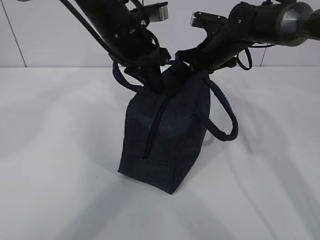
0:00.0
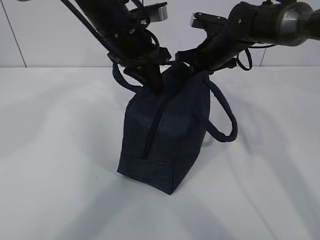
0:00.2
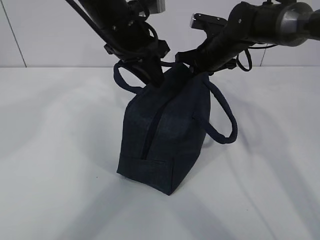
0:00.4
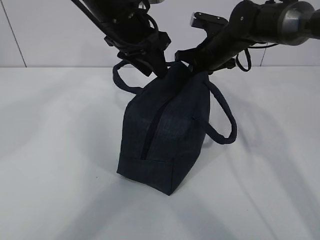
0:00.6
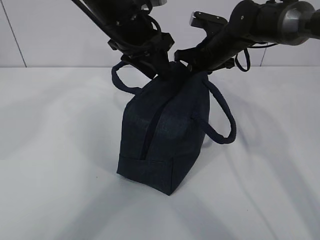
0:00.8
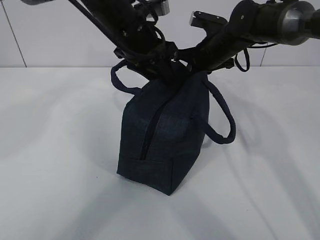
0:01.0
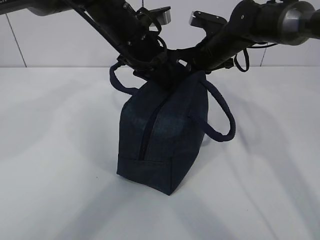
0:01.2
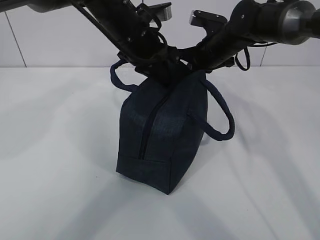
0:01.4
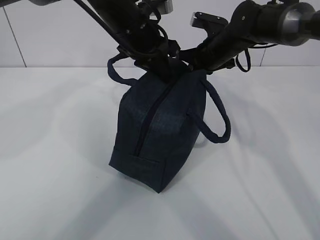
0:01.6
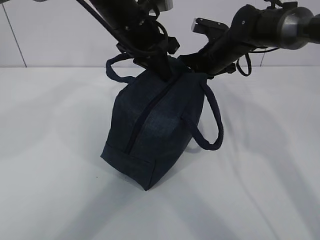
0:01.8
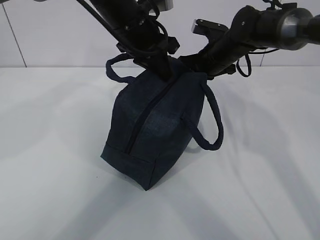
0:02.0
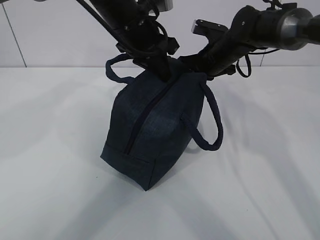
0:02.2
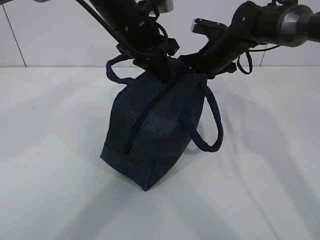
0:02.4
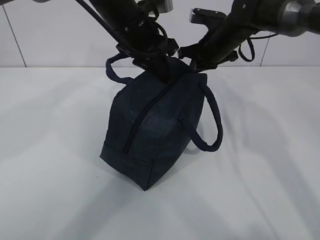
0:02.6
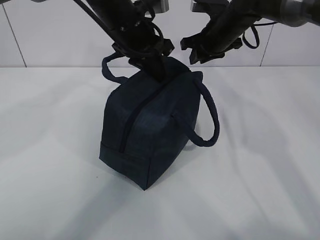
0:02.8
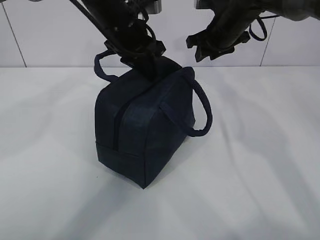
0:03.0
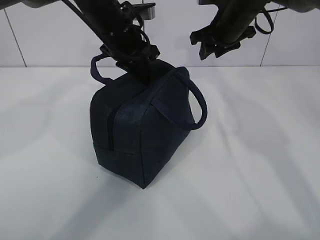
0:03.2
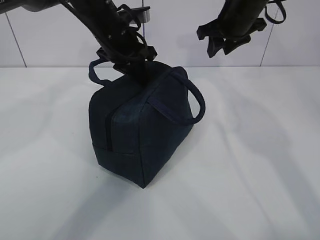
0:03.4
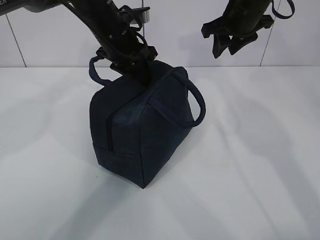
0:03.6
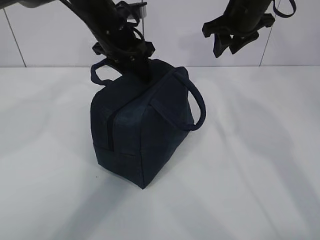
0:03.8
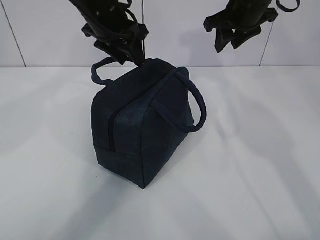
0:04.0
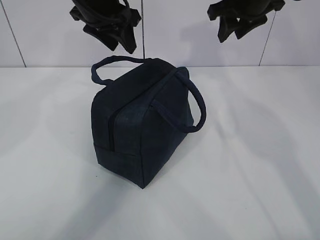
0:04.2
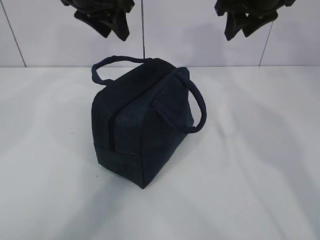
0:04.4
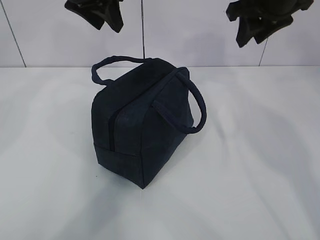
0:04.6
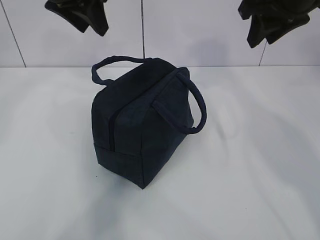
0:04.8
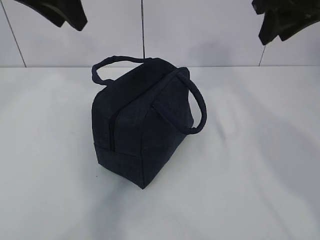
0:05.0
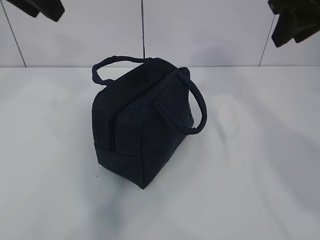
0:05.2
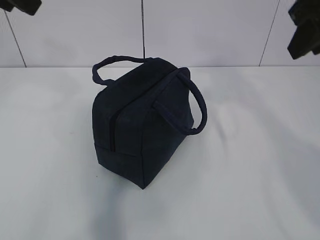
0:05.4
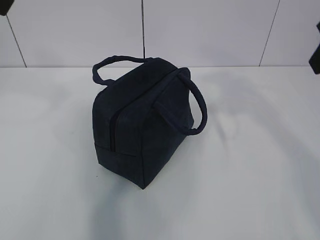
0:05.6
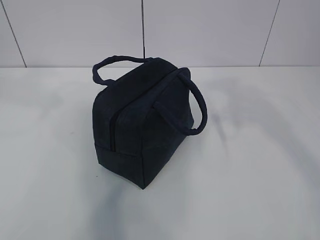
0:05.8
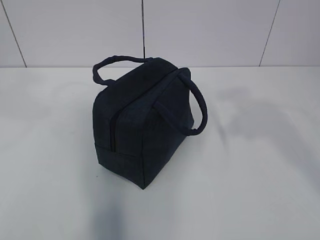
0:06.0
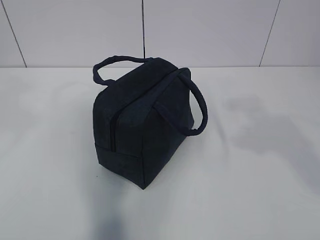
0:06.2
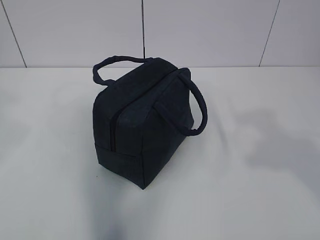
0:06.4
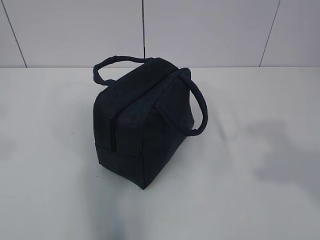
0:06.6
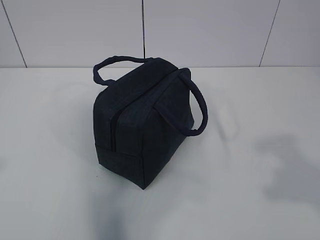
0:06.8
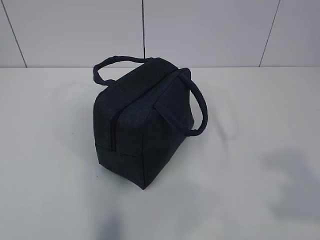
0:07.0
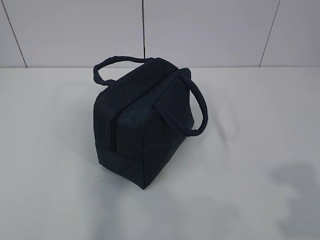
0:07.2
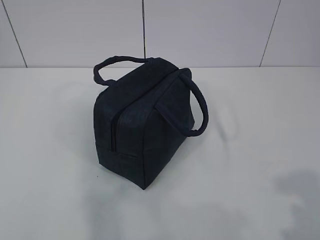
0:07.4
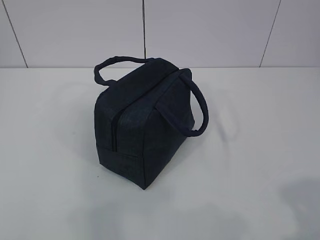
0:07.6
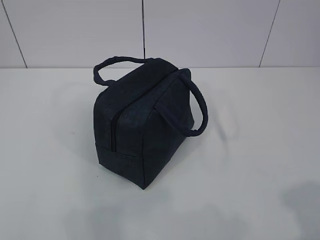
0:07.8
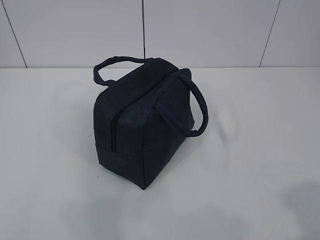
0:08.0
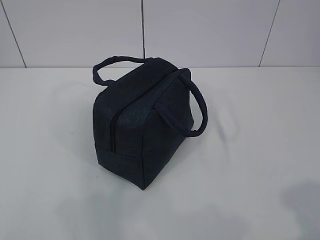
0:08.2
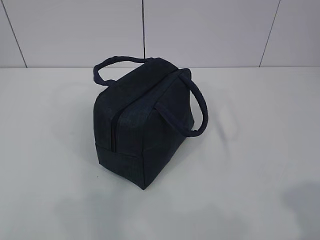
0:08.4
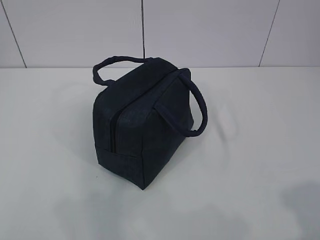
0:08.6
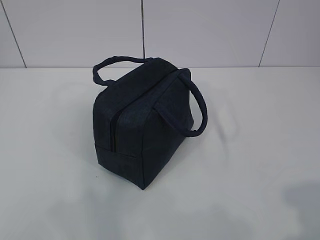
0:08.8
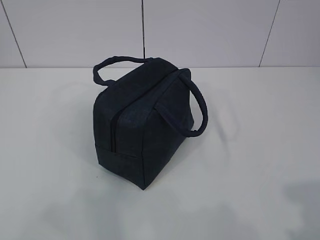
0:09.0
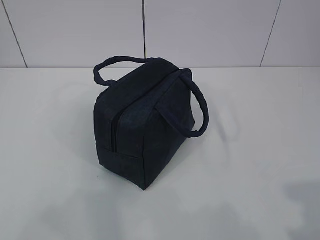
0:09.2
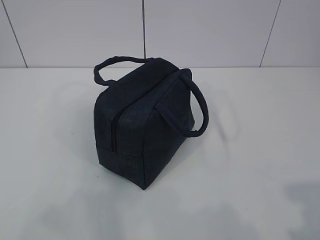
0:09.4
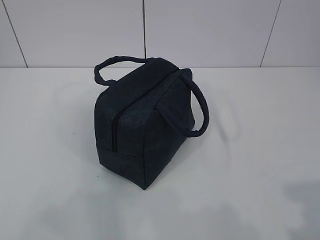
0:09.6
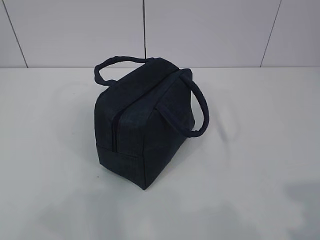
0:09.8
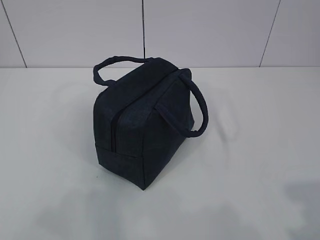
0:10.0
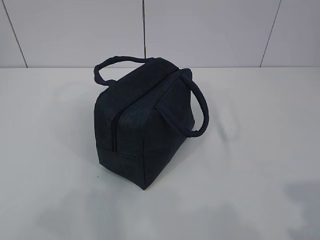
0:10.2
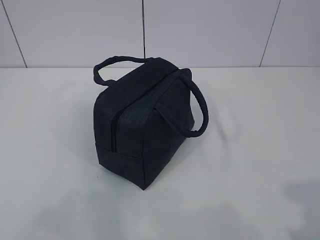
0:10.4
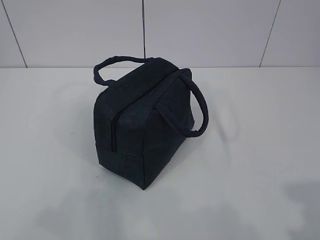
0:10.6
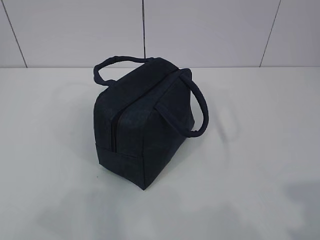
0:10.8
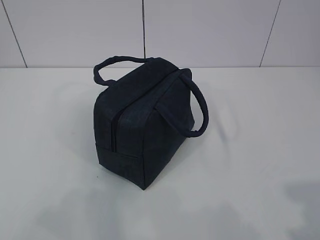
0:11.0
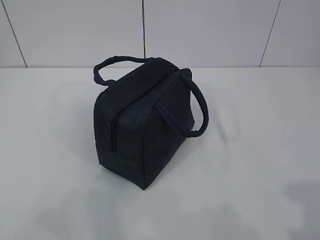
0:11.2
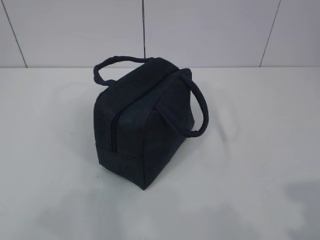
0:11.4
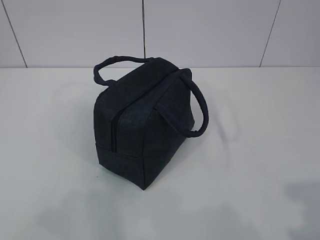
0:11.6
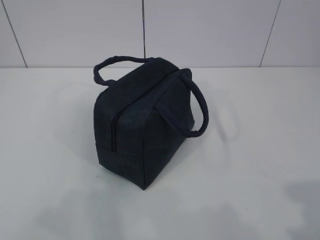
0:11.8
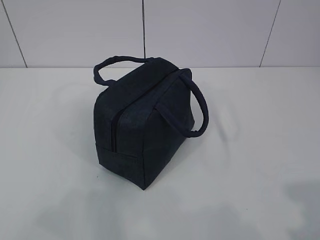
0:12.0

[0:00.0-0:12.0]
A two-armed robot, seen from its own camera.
Step, 0:00.0 to 0:04.0: zip up the zipper to close the bag.
0:00.0 to 0:01.6: The left gripper opens and closes again.
0:01.6 to 0:03.0: The right gripper opens.
0:03.0 to 0:04.4: The left gripper heads upward, covering roughly 5 cm, and opens up; the right gripper goes roughly 10 cm upward and backward.
0:04.4 to 0:06.0: The left gripper shifts some 30 cm backward, to the left and upward; the right gripper moves backward, some 25 cm.
0:06.0 to 0:07.6: The left gripper goes roughly 25 cm backward, downward and to the left. The right gripper is displaced backward and downward by about 20 cm.
0:10.4 to 0:12.0: Neither gripper changes place.

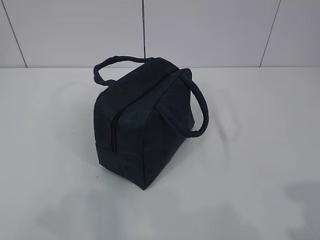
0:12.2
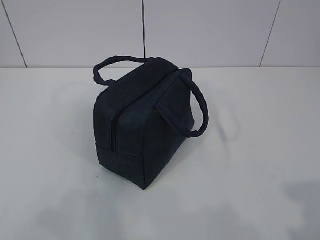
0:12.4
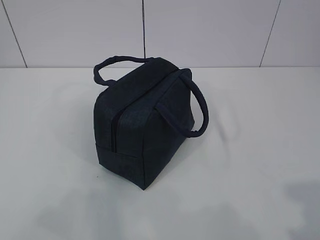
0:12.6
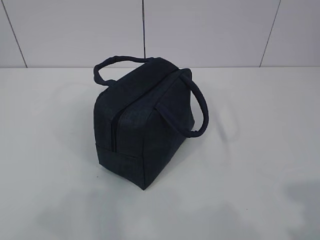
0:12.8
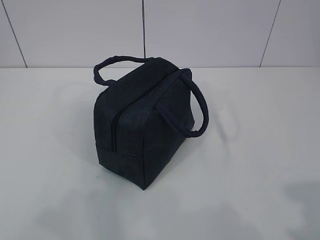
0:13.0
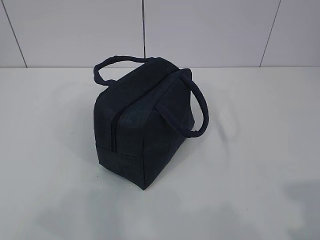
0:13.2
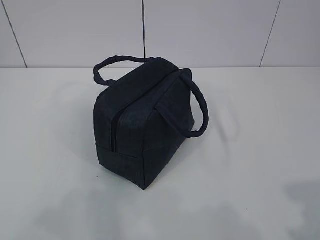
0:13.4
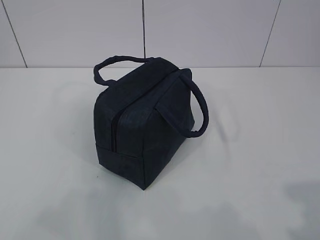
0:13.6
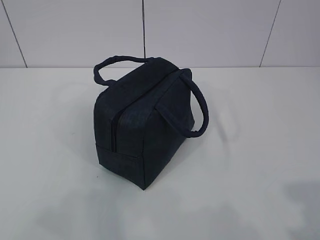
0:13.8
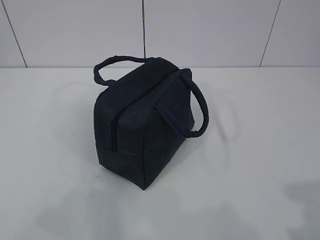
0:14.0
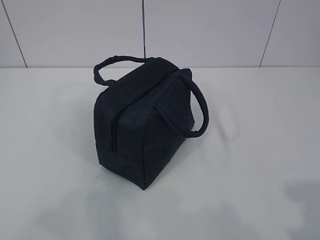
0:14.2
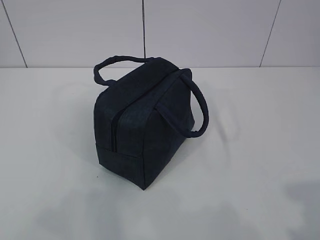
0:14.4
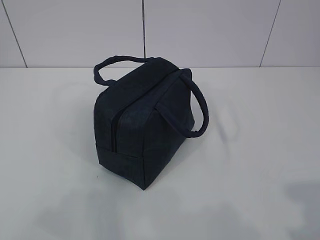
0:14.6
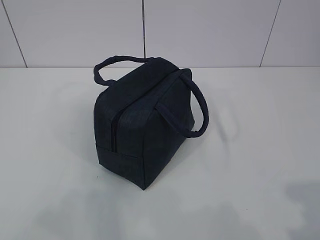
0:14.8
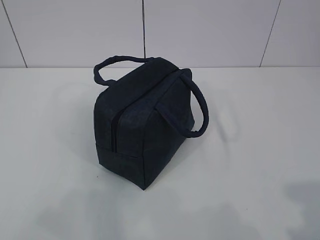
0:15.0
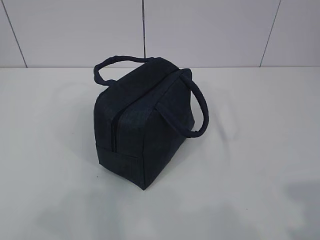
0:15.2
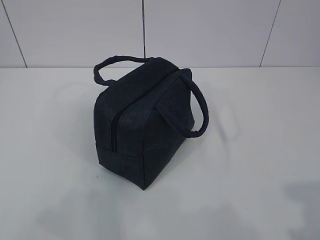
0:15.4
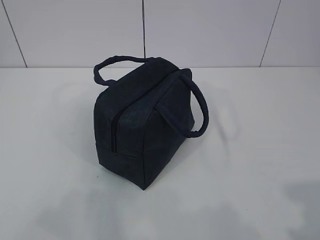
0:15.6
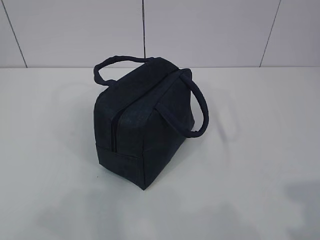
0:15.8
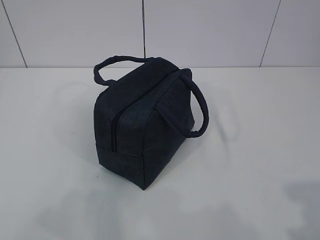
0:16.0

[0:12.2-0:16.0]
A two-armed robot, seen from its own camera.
0:12.2 to 0:16.0: Neither gripper changes place.

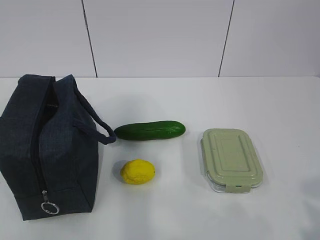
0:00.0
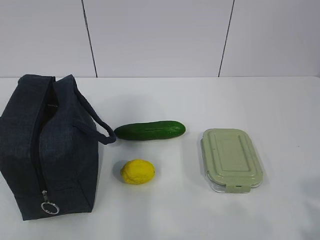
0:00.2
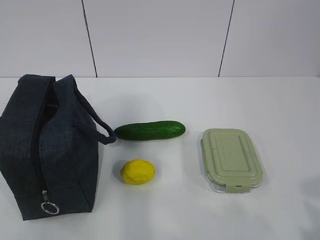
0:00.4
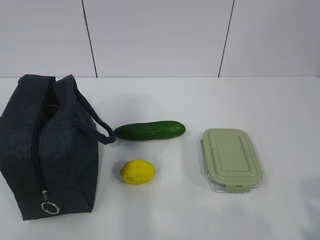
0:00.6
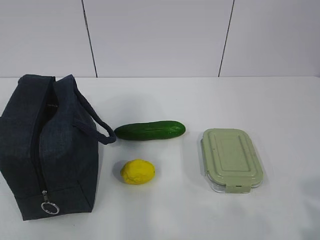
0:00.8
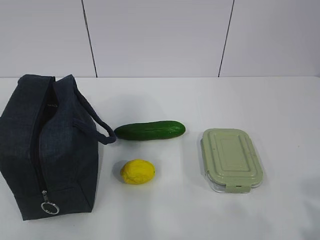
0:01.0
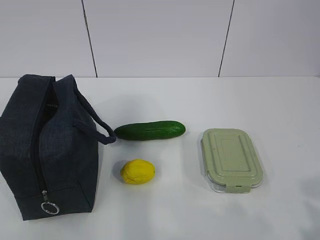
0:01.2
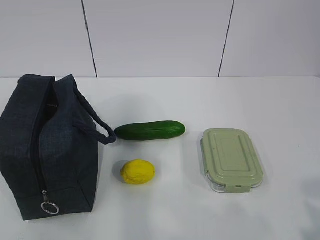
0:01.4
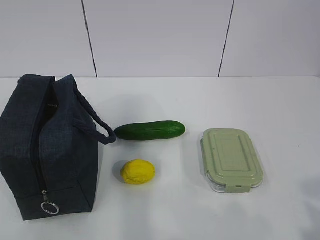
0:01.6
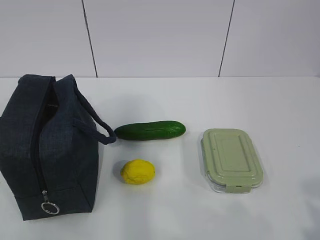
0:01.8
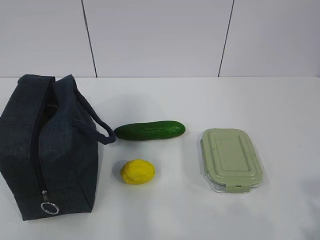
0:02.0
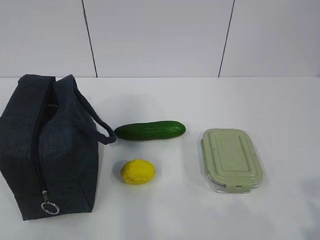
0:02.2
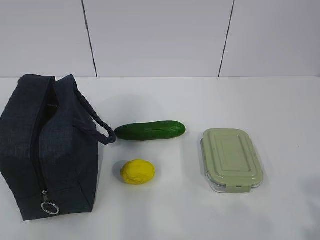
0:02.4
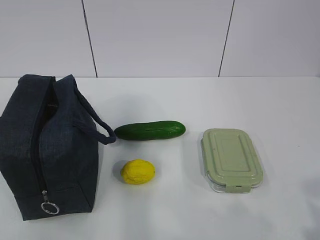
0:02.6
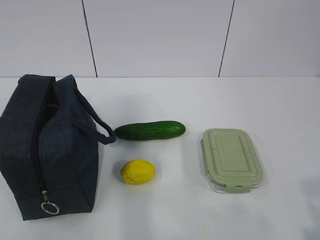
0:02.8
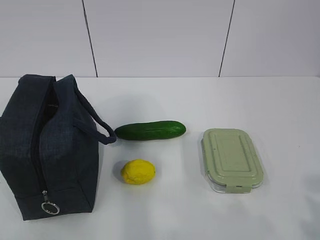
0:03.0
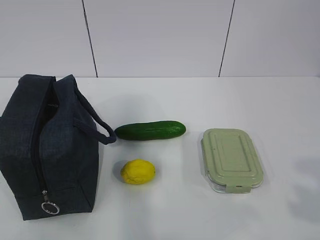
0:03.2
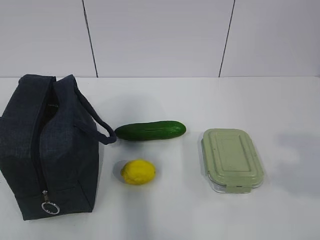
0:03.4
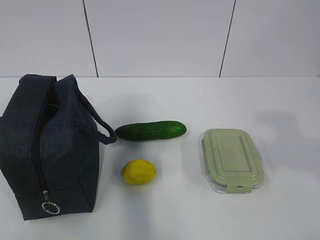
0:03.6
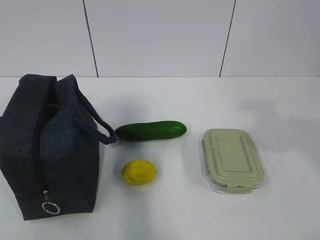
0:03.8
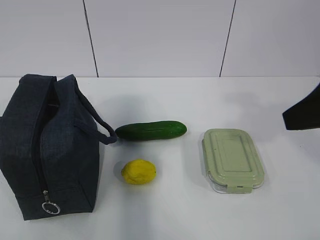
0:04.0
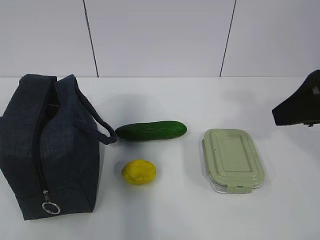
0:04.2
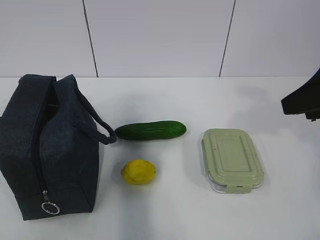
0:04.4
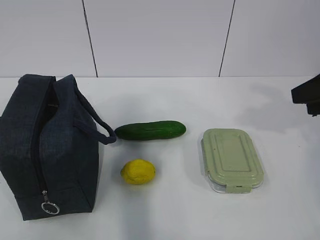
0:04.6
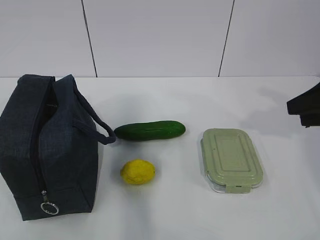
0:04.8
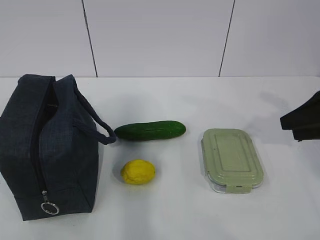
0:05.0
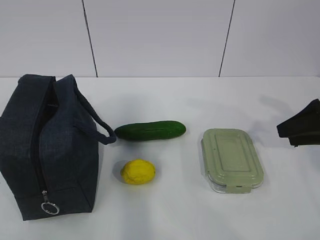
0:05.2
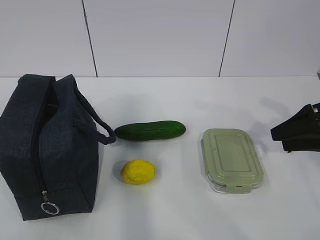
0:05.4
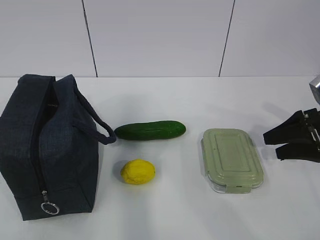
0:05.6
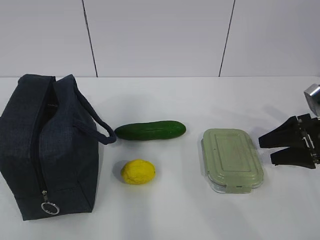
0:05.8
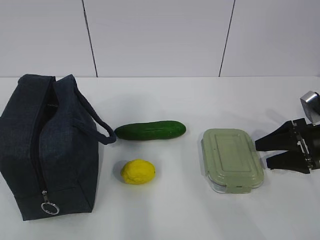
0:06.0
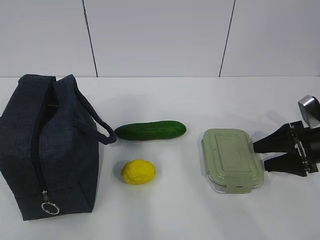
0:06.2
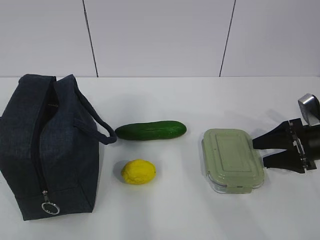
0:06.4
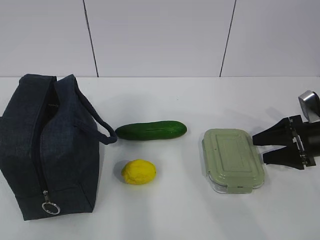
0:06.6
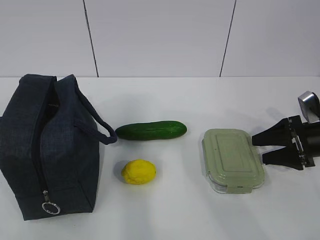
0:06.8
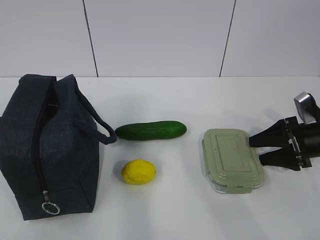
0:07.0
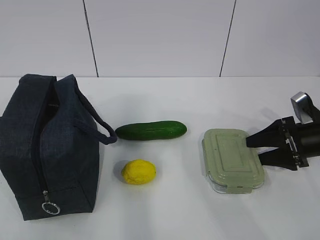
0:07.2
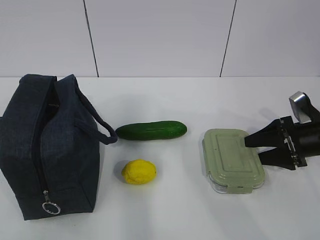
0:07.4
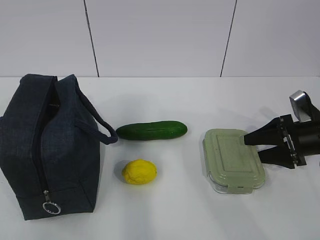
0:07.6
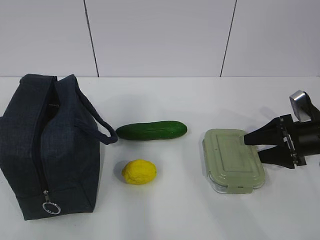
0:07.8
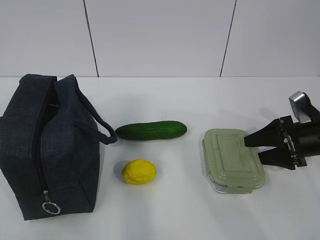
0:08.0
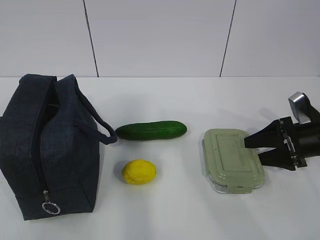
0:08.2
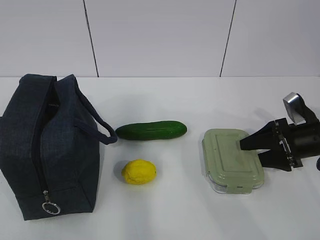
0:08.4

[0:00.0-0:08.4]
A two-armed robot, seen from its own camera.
0:01.4 to 0:02.8: Neither gripper changes place.
0:02.8 to 0:04.2: The right gripper is displaced forward by some 20 cm.
0:04.2 to 0:05.6: The right gripper goes some 20 cm downward, forward and to the right.
0:05.6 to 0:07.0: The right gripper shifts some 5 cm downward.
0:07.0 to 0:08.4: The grippers make only small movements.
